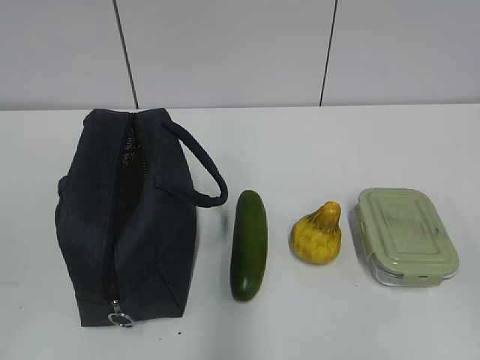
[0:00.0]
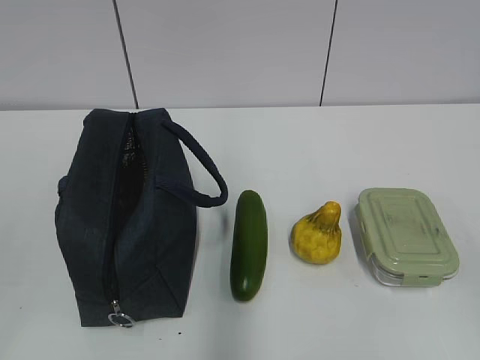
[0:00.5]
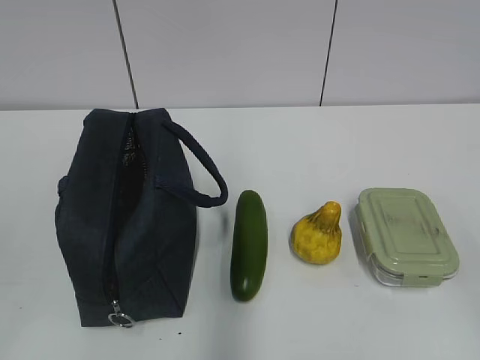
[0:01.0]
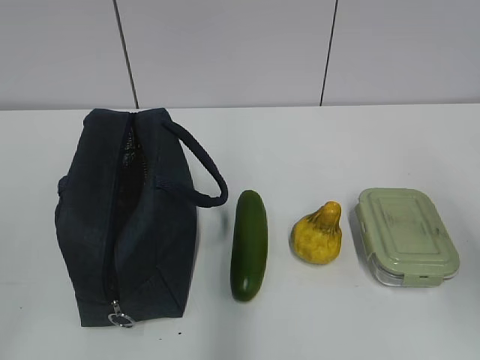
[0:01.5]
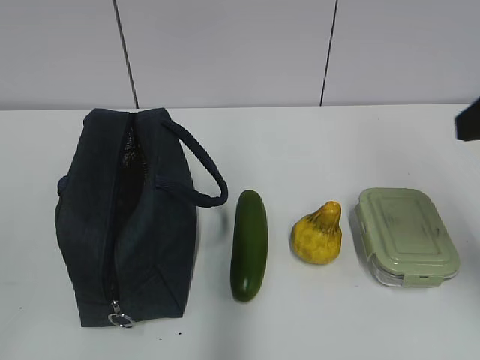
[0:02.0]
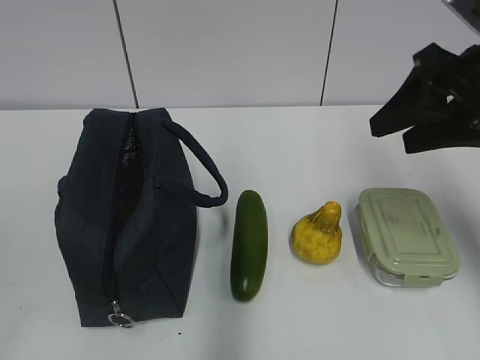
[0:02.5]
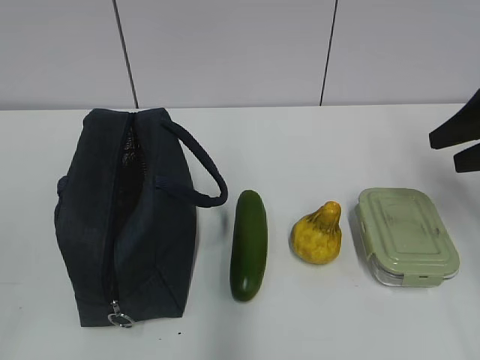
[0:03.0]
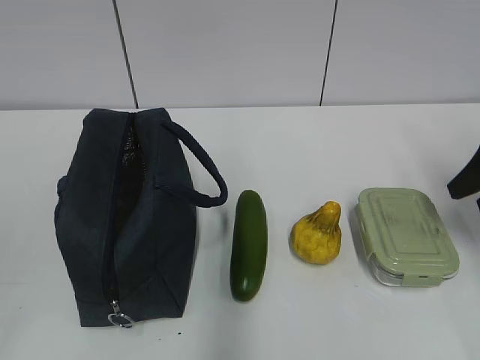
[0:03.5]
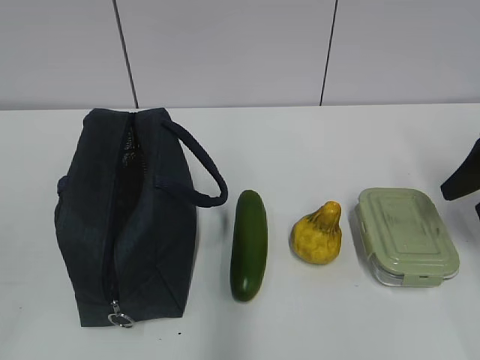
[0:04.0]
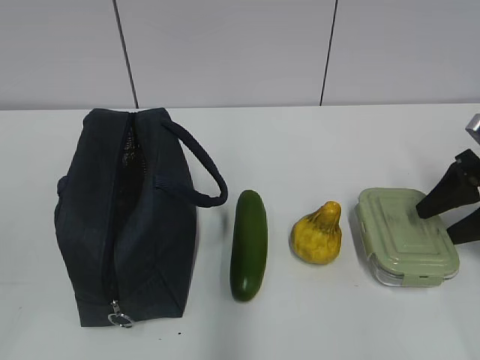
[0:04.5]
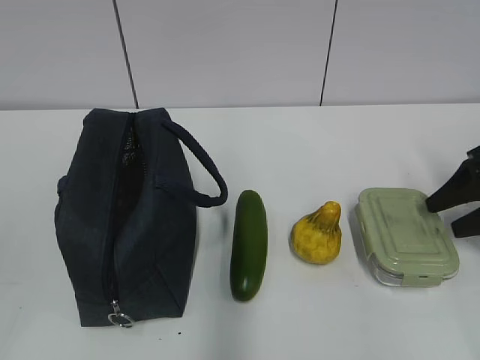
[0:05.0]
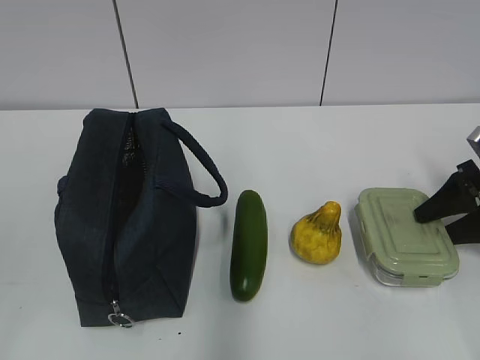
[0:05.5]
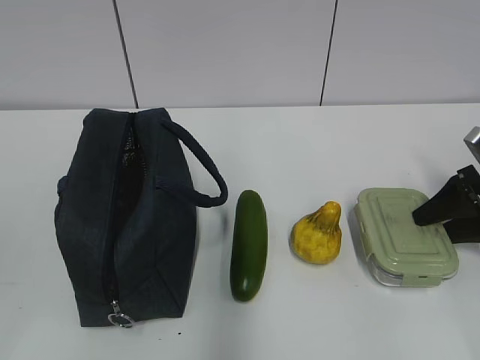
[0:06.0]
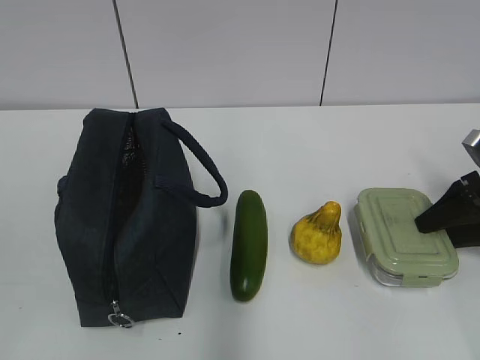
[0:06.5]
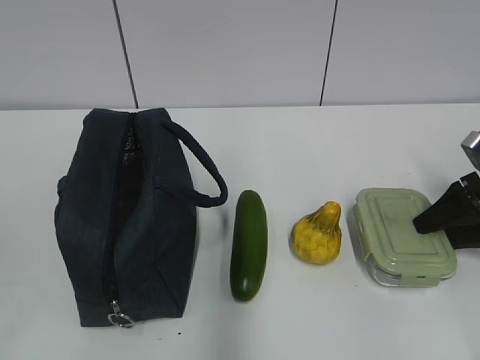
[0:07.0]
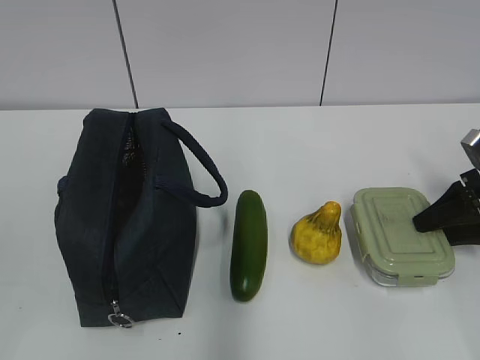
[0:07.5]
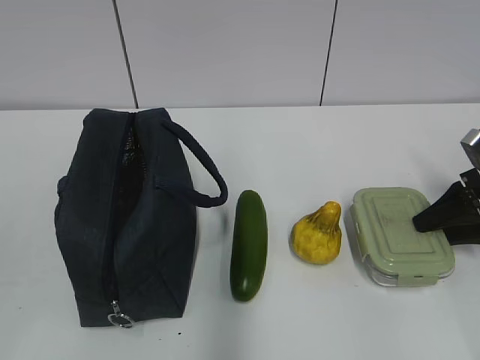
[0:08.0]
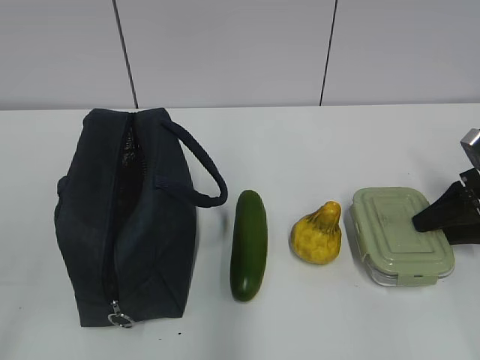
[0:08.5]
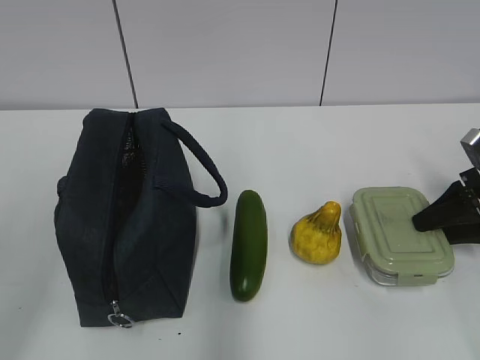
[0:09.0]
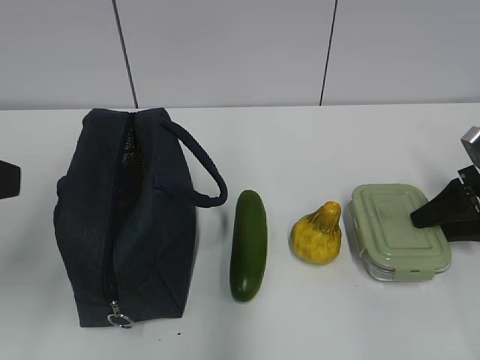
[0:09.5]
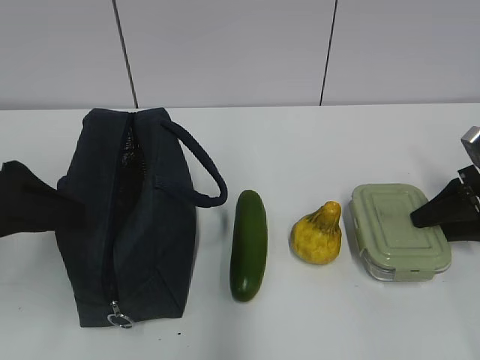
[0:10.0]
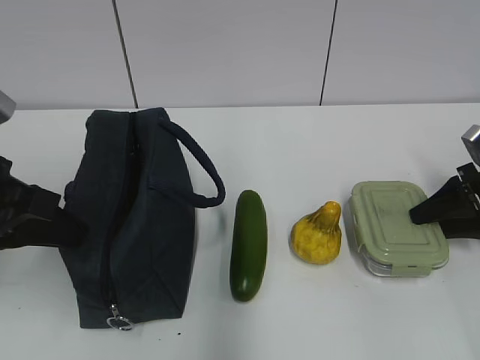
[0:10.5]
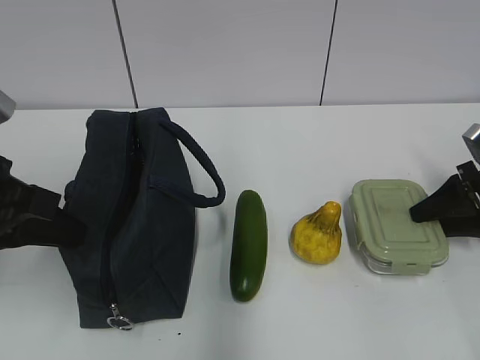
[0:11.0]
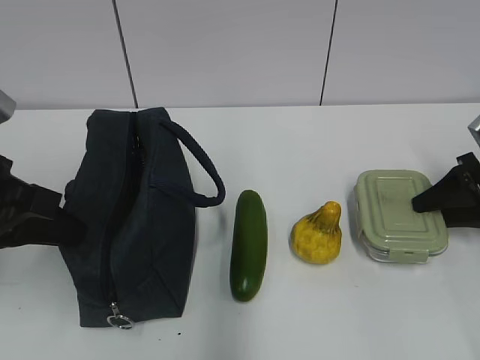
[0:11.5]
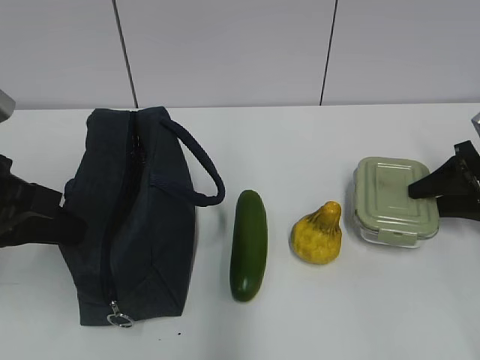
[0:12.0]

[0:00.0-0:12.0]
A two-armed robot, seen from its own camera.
Step, 0:00.0 to 0:11.5: Grab the lunch box with your right hand.
0:02.0 to 0:04.0: The right gripper goes approximately 20 cm downward, to the right and forward.
0:04.0 to 0:06.0: The right gripper shifts about 10 cm downward.
0:06.0 to 0:08.0: Neither gripper changes place.
0:08.0 to 0:10.0: The left gripper shifts roughly 20 cm forward.
0:10.0 to 0:12.0: The left gripper closes its fingers.

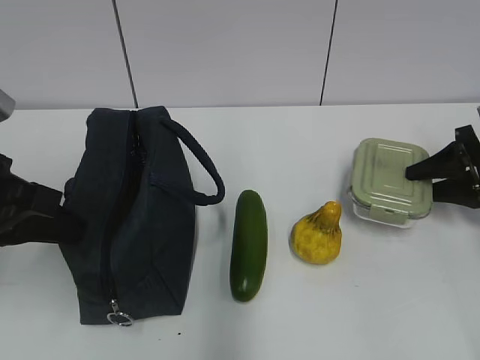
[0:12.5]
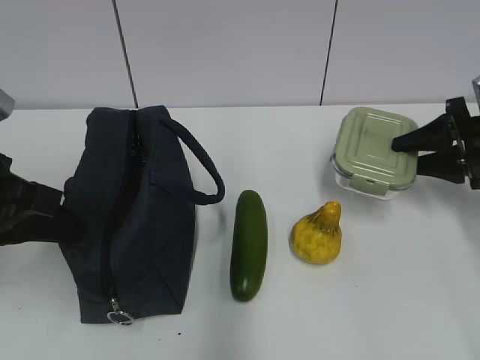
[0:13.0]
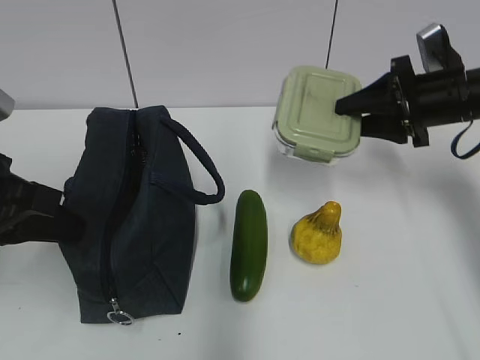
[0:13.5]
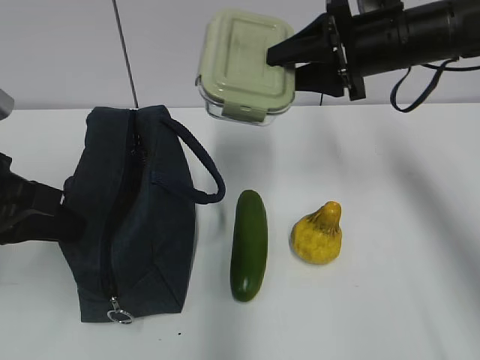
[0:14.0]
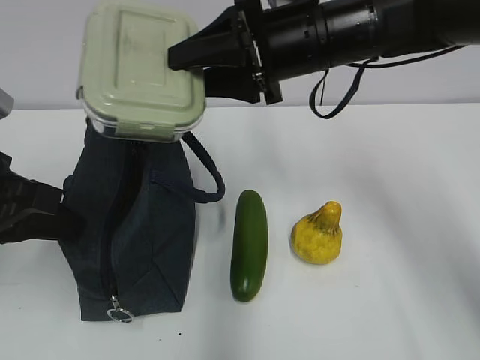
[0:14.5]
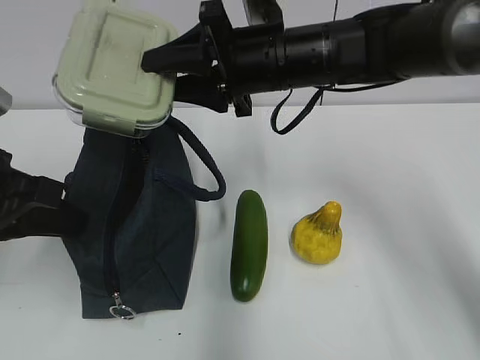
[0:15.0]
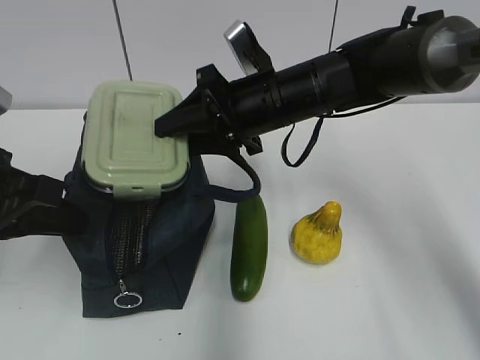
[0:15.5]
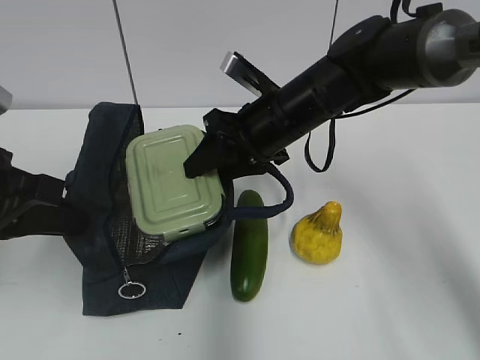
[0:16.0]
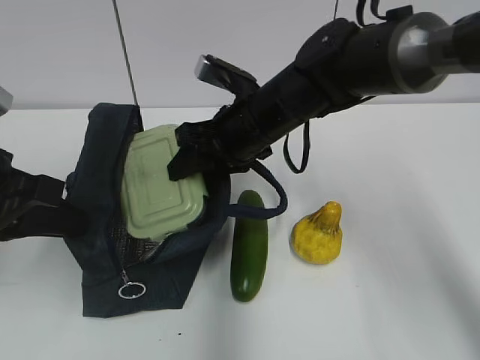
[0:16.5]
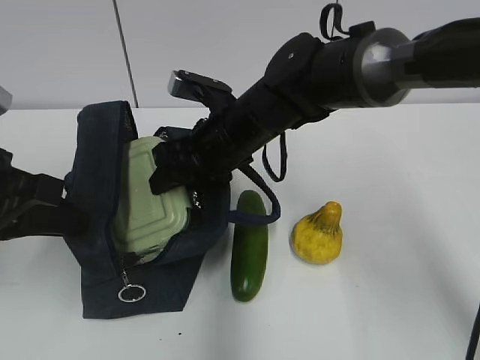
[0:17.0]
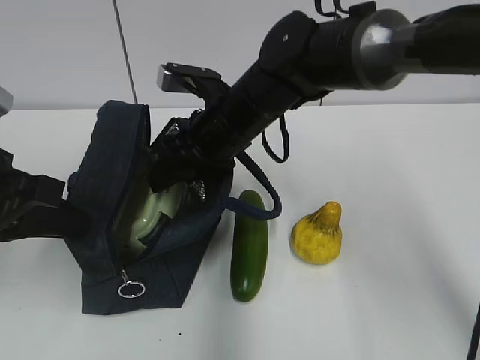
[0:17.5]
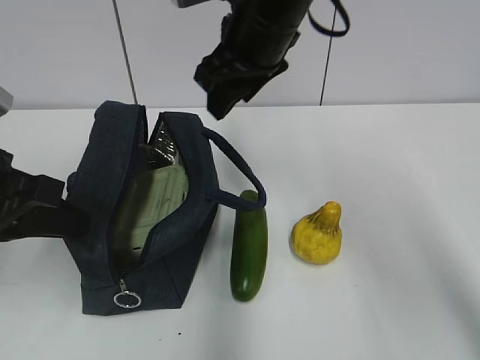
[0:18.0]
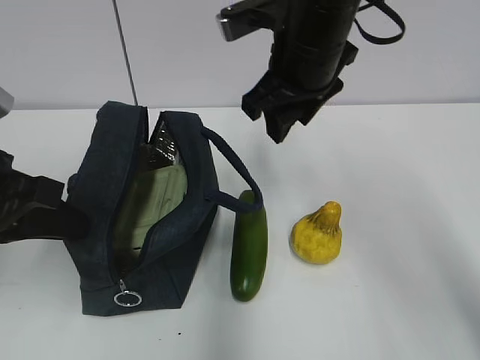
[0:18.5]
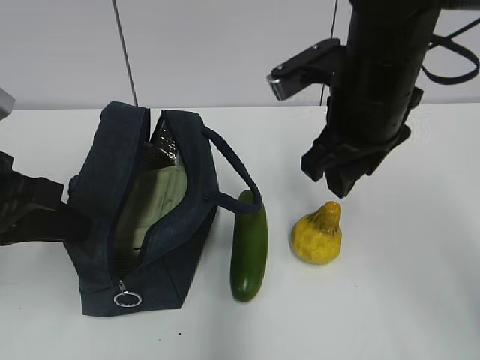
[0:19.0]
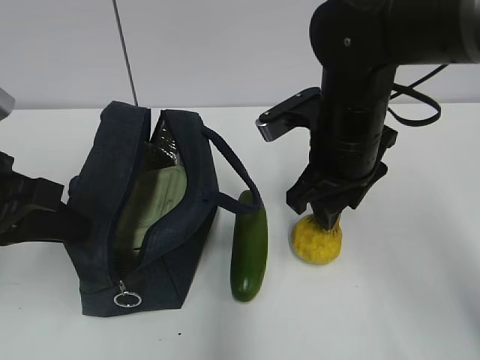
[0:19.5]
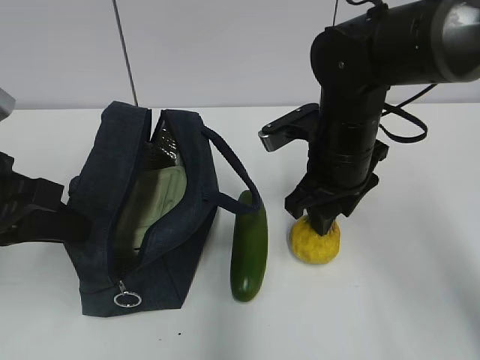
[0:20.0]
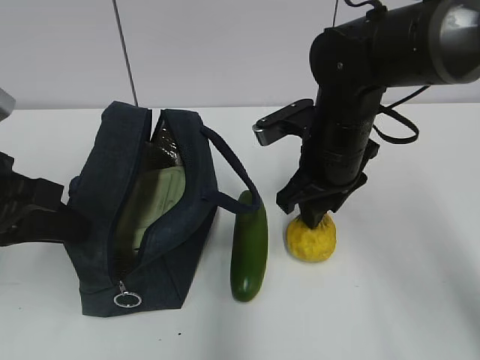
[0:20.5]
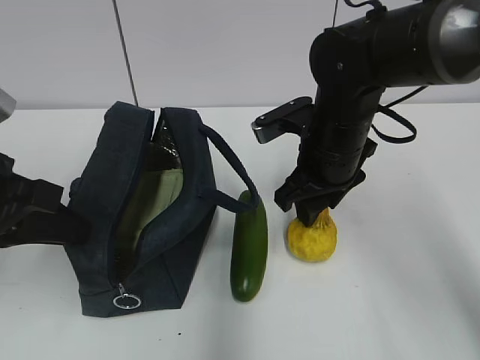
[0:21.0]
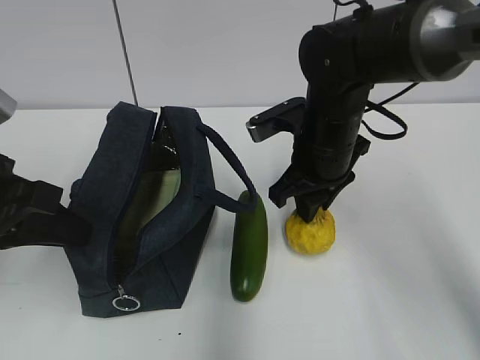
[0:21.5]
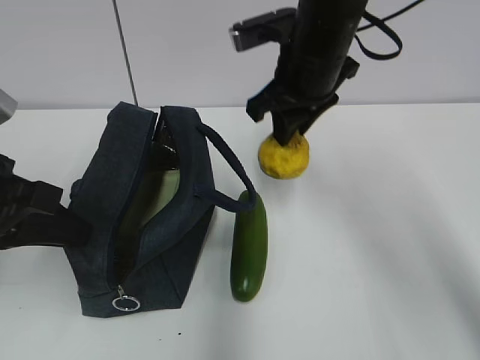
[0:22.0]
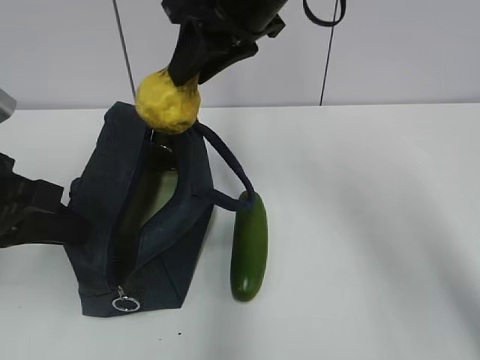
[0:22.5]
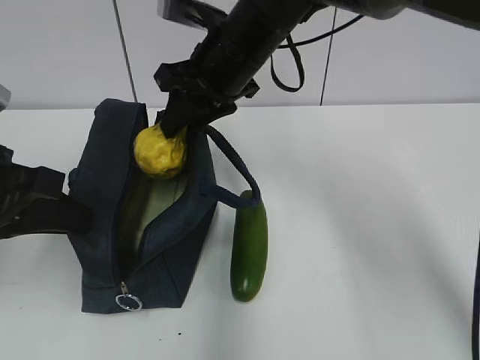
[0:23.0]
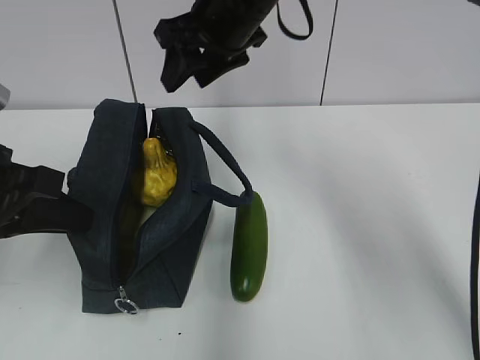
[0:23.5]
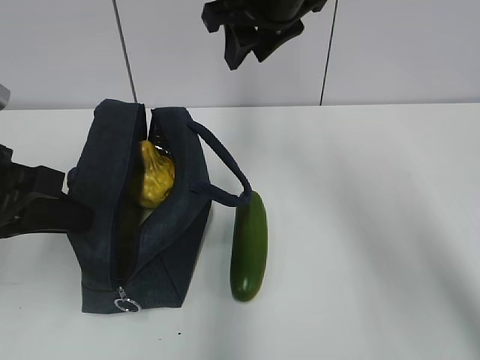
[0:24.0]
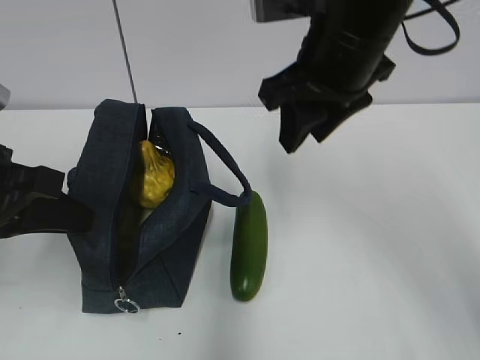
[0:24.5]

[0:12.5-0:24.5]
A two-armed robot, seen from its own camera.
Step, 0:15.5 to 0:17.5: Place it into the bag with your right hand.
Step, 0:18.0 to 0:21.0: Grab the pear with your right hand.
Step, 0:21.5 to 0:23.0: Place it into the bag with your right hand.
0:12.5 to 0:14.5: The right gripper goes some 30 cm to the left and upward.
0:14.5 to 0:16.5: The right gripper travels downward by approximately 10 cm.
0:16.5 to 0:18.5: The right gripper goes about 10 cm upward.
0:18.5 to 0:20.5: The right gripper moves downward, approximately 10 cm.
0:20.5 to 0:22.5: The right gripper moves upward and to the left, roughly 15 cm.
0:22.5 to 0:24.5: The right gripper is displaced to the right and backward by some 10 cm.

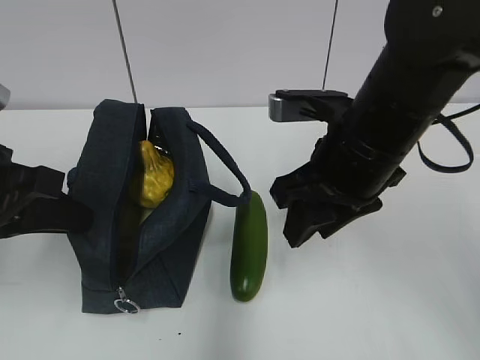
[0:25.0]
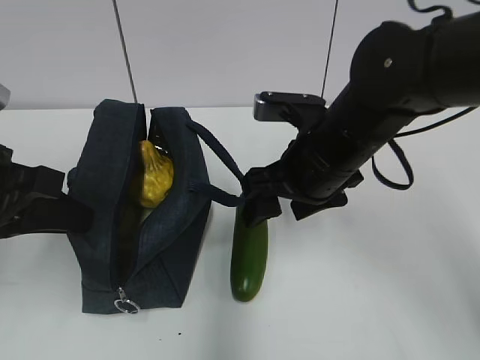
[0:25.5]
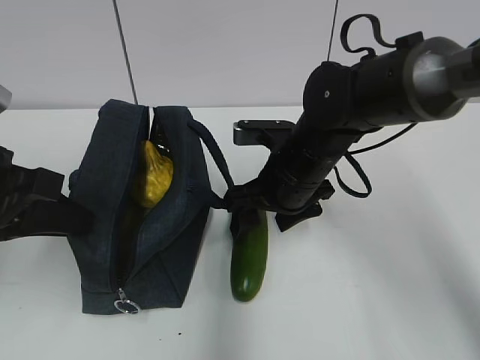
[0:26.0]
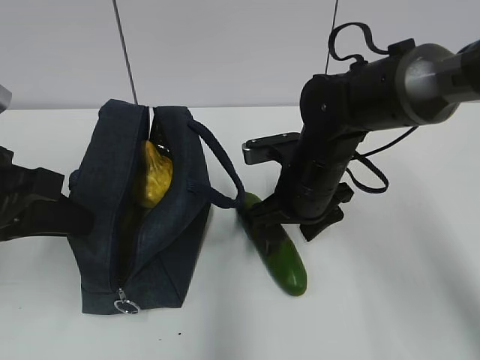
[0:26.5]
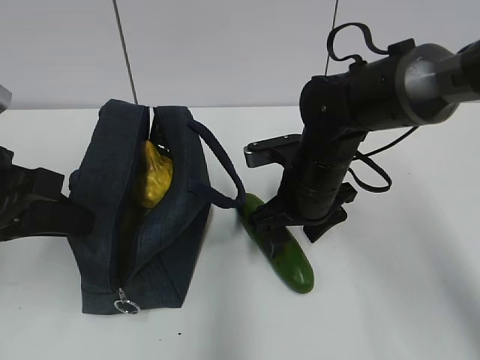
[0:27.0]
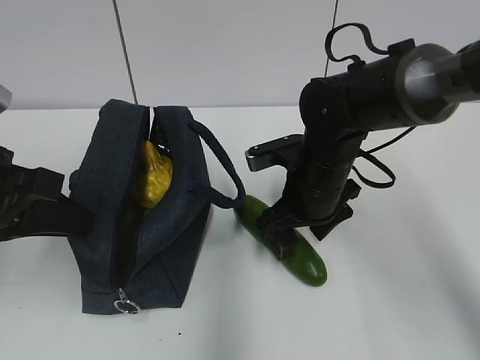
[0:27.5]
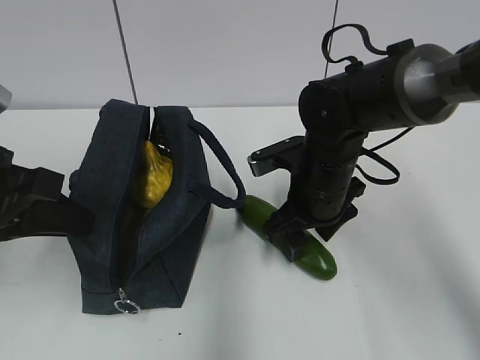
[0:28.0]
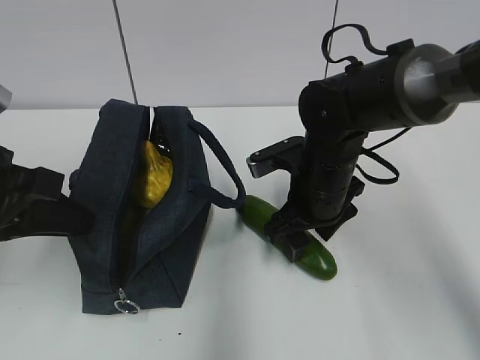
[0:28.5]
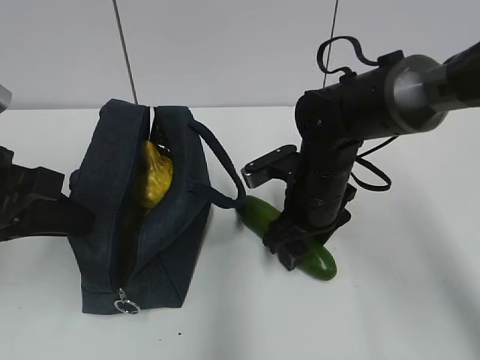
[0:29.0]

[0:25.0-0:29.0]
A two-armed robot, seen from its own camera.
0:25.0 to 0:27.0: The right gripper heads downward and forward, covering about 10 cm, and opens its fingers.
0:27.0 to 0:29.0: There are only small adjustments of the grippers.
